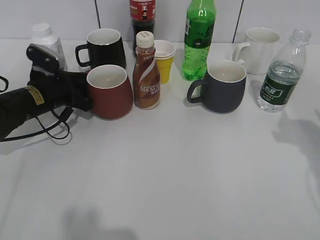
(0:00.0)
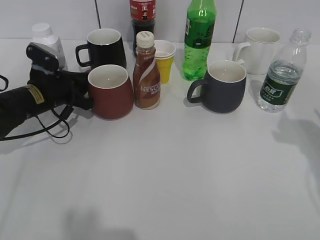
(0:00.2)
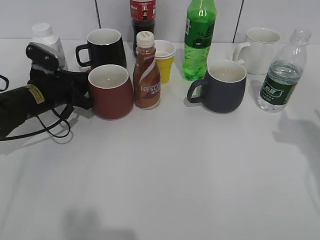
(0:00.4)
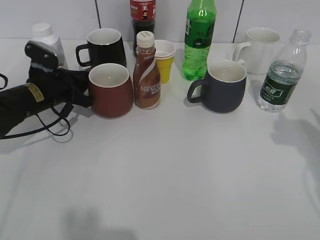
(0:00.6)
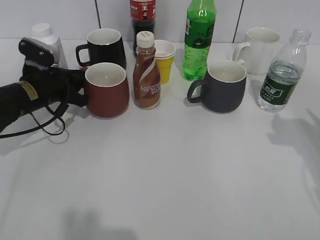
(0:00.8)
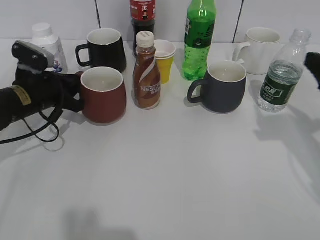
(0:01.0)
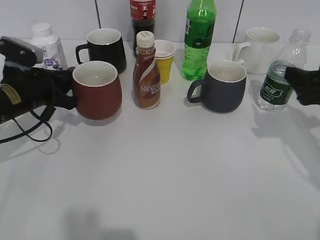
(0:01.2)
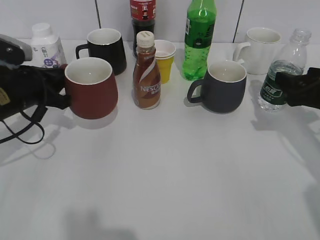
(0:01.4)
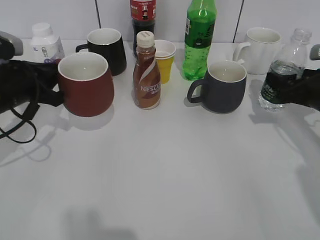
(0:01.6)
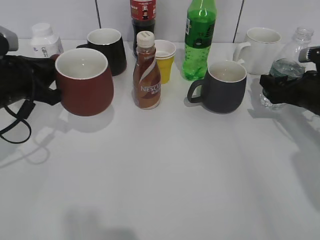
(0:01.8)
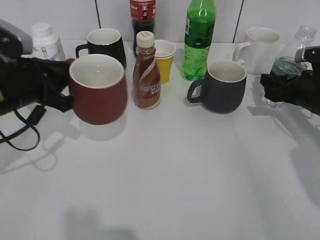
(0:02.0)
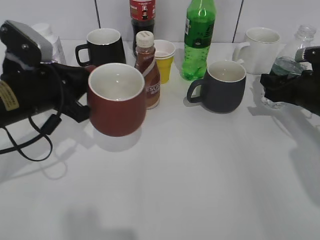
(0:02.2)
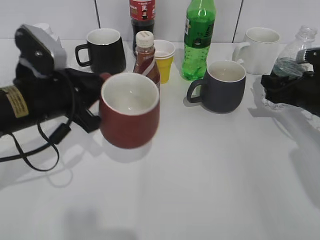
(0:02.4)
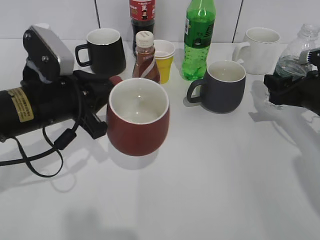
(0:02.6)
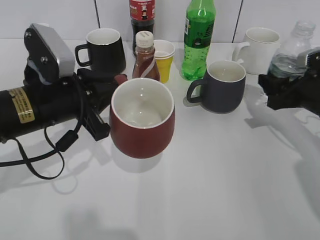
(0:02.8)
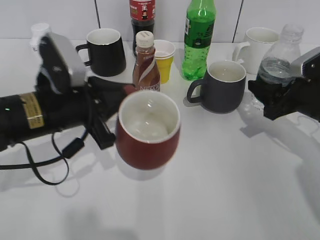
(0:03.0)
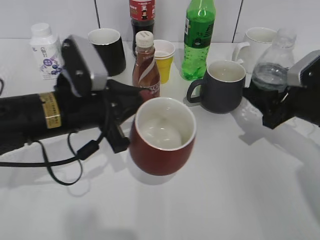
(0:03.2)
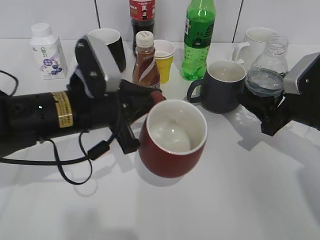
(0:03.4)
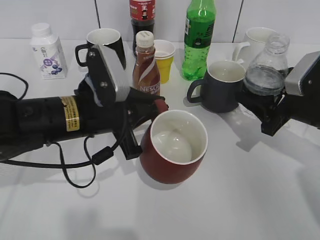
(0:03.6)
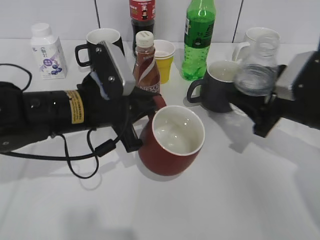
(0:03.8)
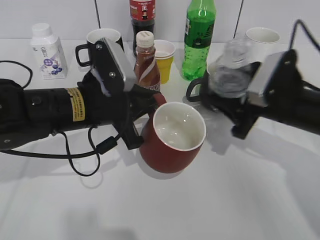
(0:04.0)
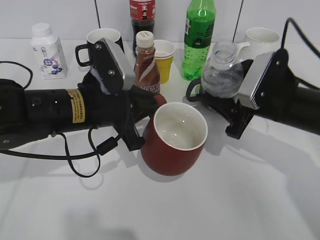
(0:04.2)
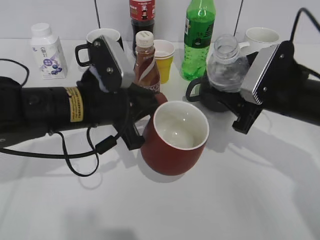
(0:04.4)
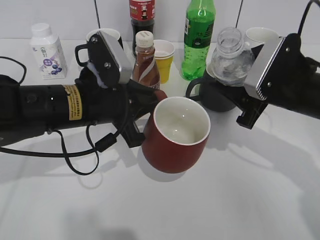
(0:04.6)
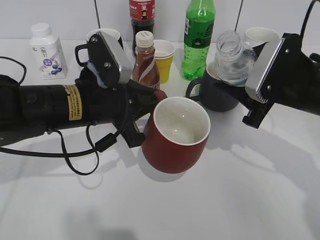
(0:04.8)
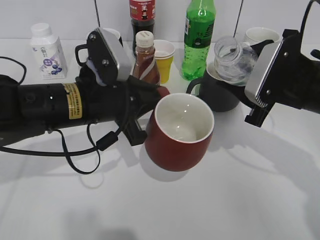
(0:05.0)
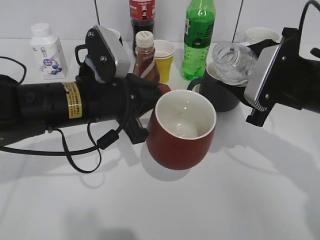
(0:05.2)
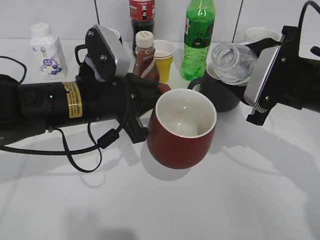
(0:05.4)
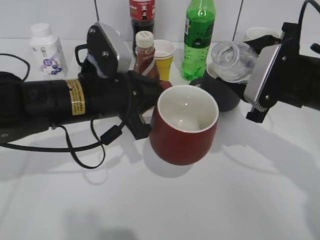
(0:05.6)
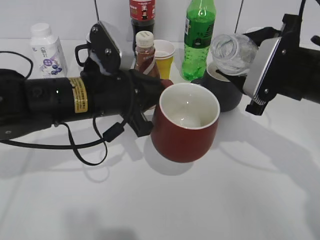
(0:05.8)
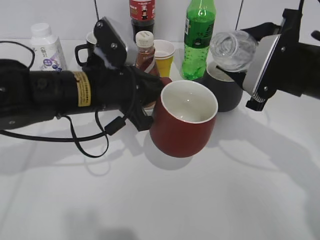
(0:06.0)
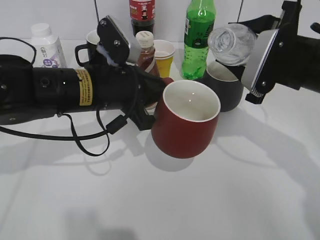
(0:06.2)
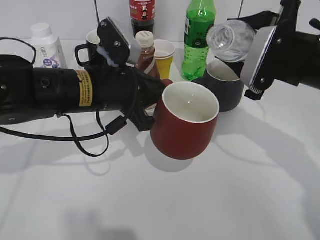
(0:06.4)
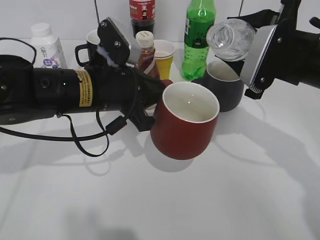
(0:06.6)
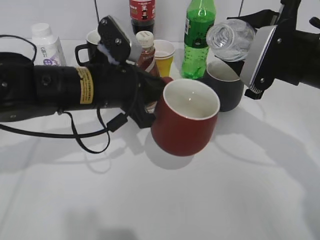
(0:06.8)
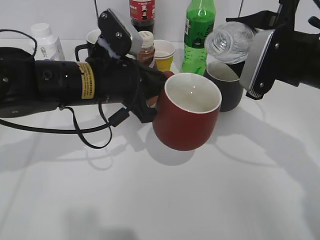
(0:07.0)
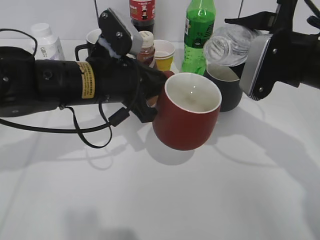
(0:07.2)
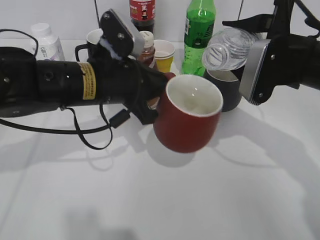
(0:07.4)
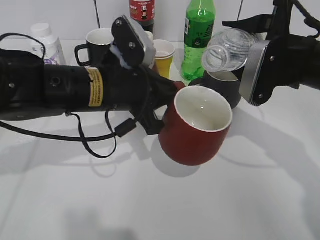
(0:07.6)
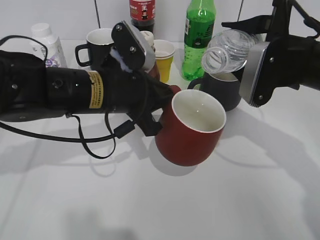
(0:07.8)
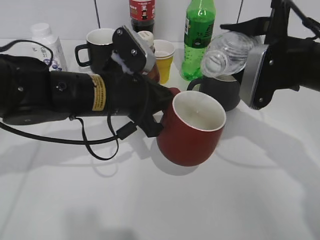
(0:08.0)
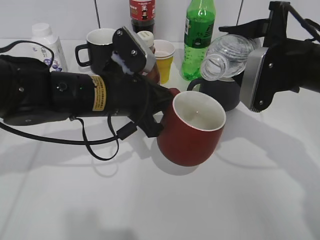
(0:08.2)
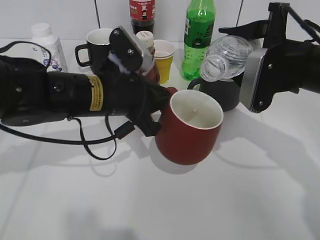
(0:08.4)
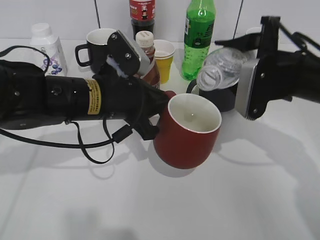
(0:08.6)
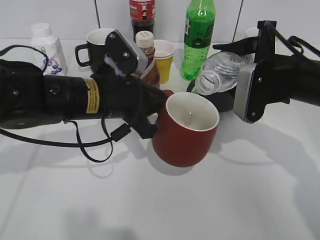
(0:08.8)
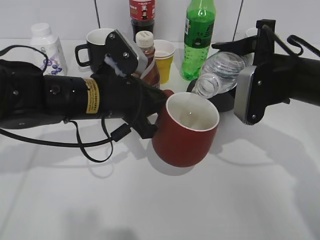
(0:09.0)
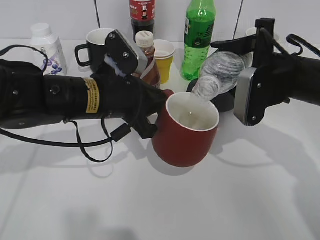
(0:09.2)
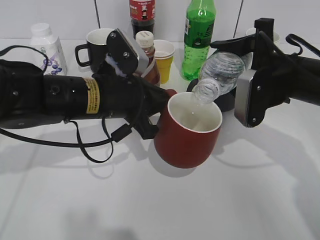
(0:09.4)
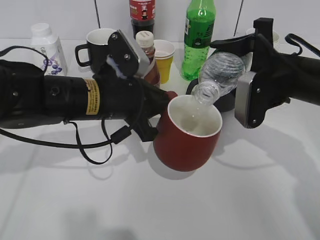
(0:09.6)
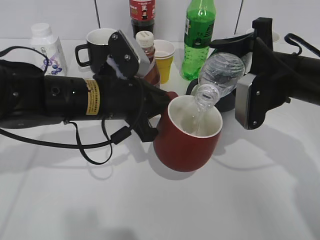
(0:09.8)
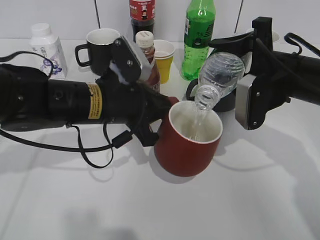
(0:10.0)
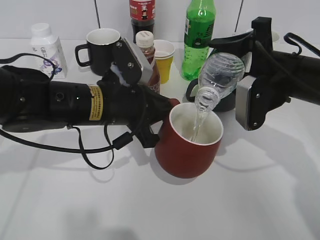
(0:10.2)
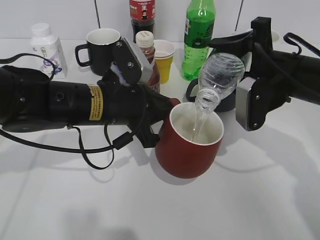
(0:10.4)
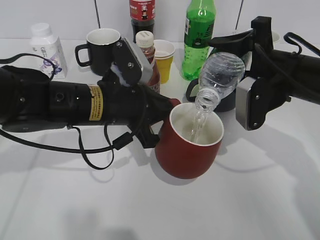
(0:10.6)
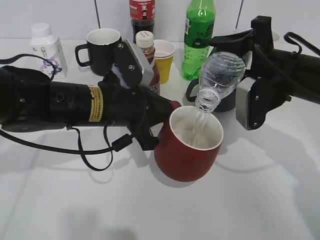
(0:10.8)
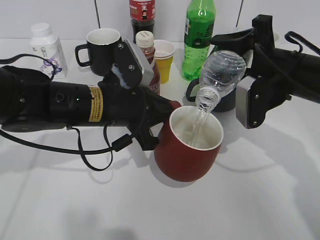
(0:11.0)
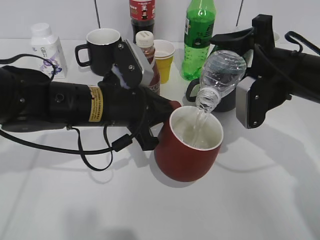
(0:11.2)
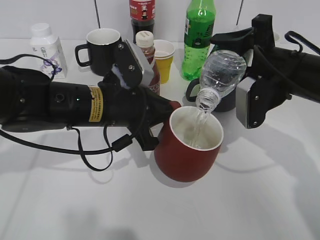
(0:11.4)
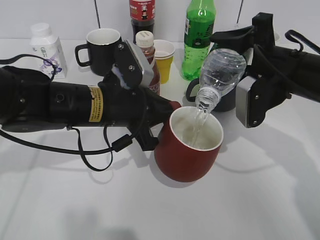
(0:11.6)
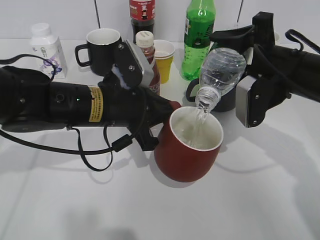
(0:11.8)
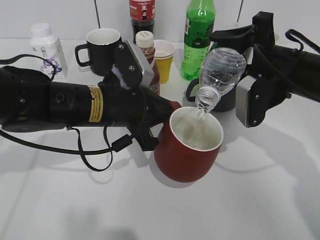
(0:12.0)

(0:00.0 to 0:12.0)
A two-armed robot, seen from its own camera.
Step, 0:01.4 - 0:02.2: Grasp the bottle with water with right gripper.
0:00.0 - 0:01.6: The right gripper heads downward and forward, covering some 15 cm; the left gripper heads backward and upward, covering approximately 10 cm, and closes up.
0:01.6 - 0:03.0: The right gripper closes; the left gripper goes about 10 cm to the right and backward.
0:03.0 - 0:04.4: The right gripper shifts approximately 10 cm to the left.
0:06.0 - 0:07.6: The grippers make only small movements.
0:09.0 - 0:10.4: The grippers make only small movements.
0:10.4 - 0:12.0: There are only small adjustments of the grippers.

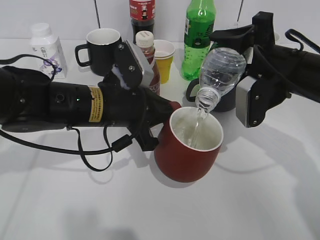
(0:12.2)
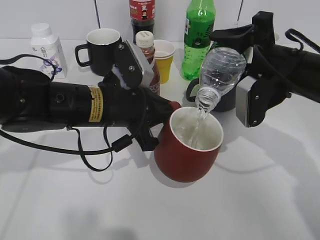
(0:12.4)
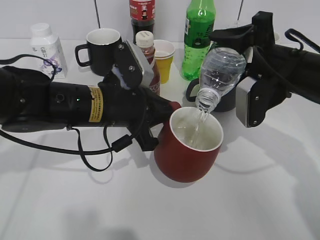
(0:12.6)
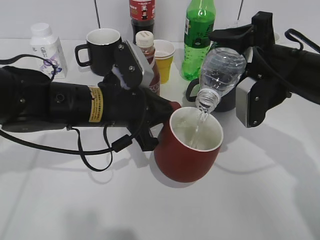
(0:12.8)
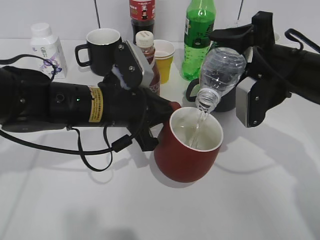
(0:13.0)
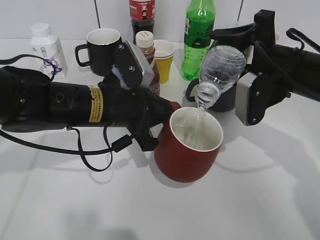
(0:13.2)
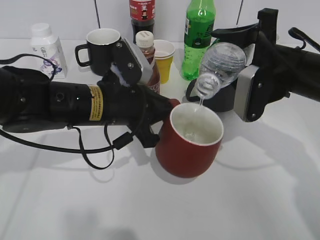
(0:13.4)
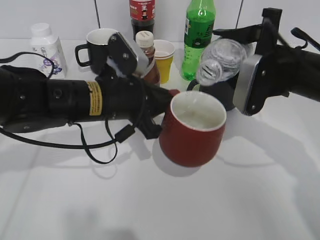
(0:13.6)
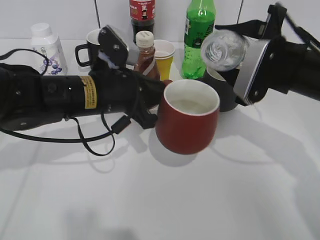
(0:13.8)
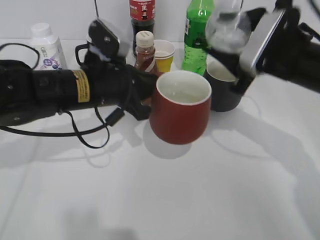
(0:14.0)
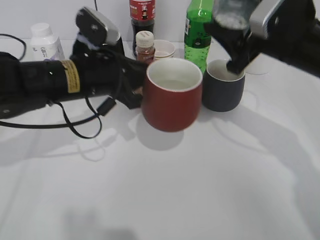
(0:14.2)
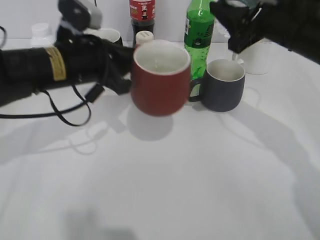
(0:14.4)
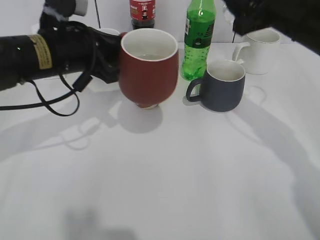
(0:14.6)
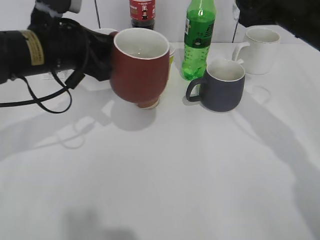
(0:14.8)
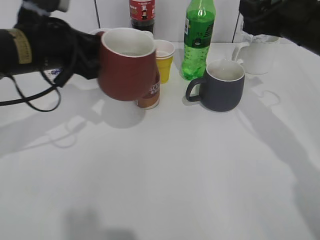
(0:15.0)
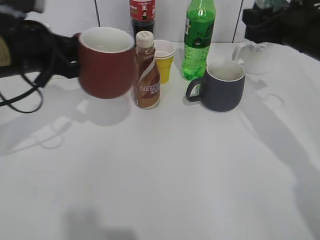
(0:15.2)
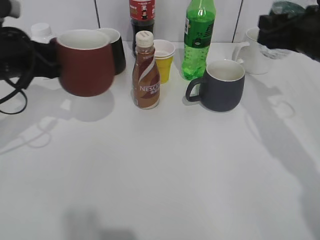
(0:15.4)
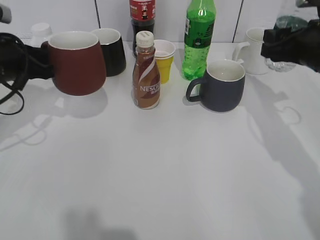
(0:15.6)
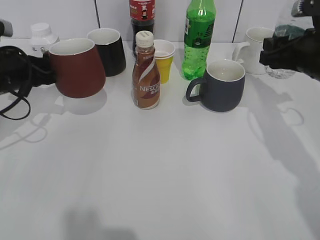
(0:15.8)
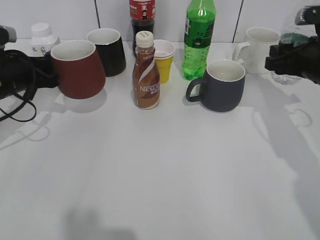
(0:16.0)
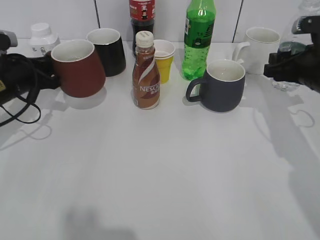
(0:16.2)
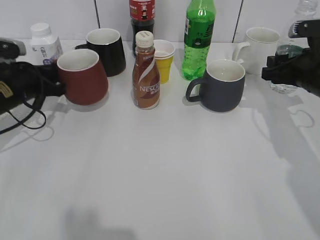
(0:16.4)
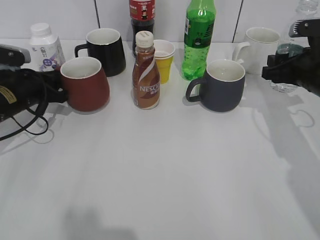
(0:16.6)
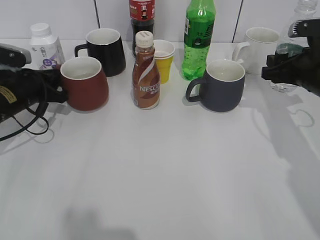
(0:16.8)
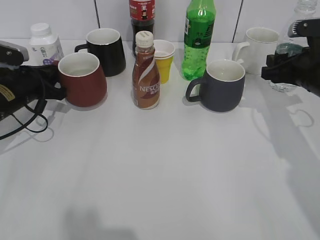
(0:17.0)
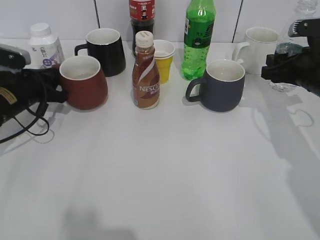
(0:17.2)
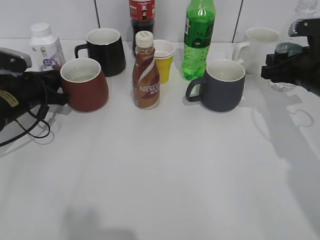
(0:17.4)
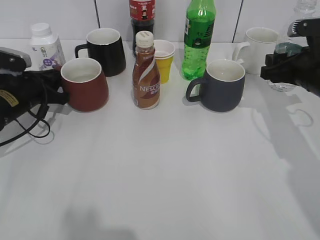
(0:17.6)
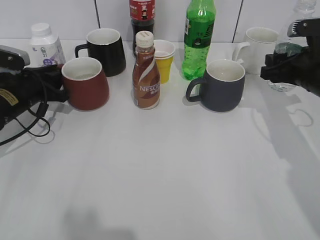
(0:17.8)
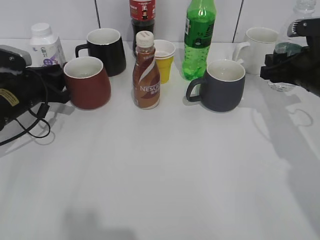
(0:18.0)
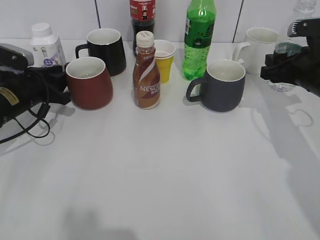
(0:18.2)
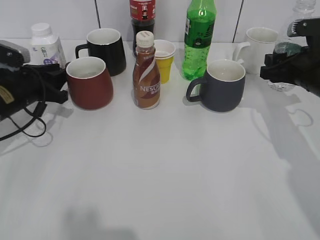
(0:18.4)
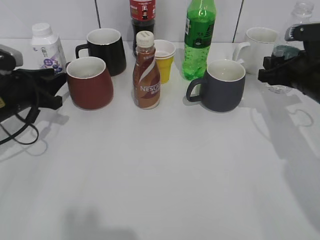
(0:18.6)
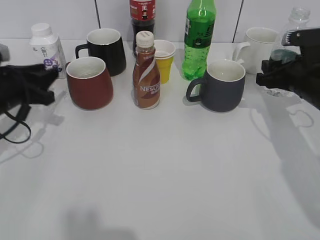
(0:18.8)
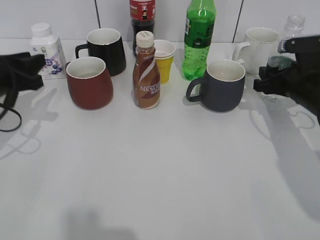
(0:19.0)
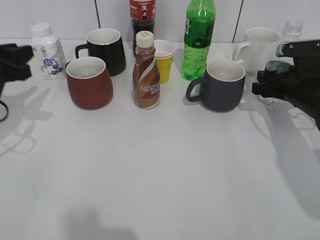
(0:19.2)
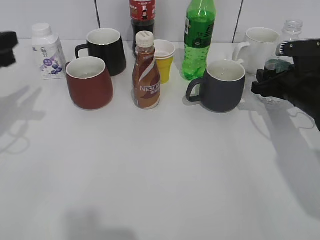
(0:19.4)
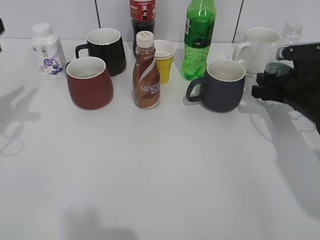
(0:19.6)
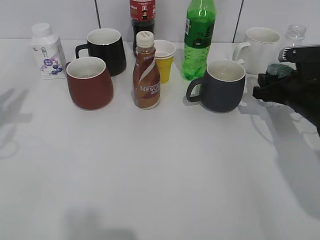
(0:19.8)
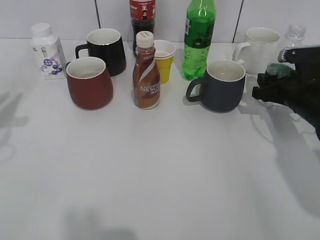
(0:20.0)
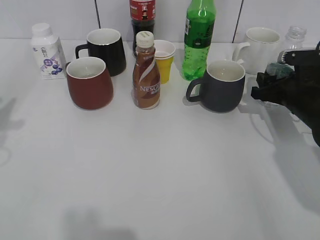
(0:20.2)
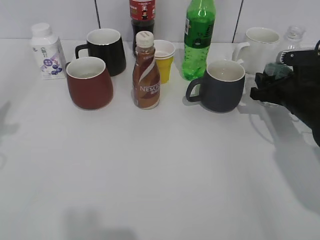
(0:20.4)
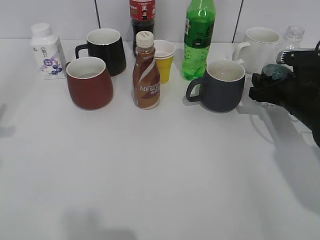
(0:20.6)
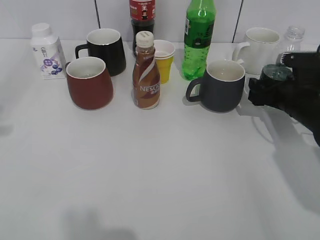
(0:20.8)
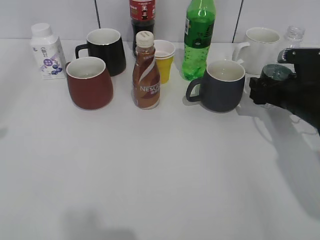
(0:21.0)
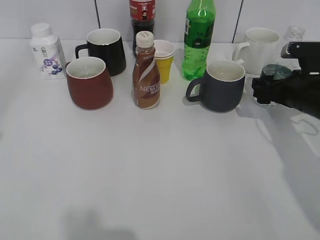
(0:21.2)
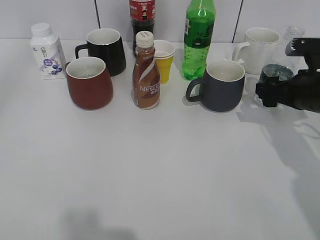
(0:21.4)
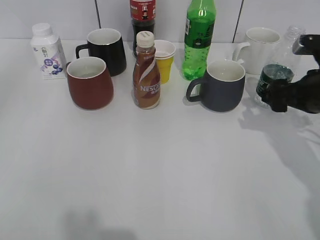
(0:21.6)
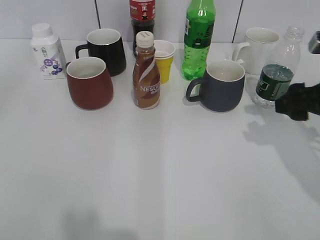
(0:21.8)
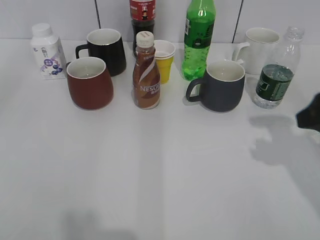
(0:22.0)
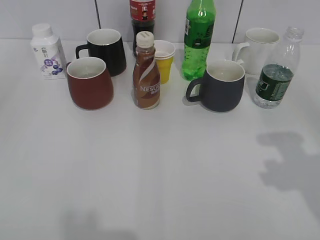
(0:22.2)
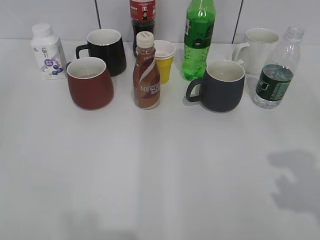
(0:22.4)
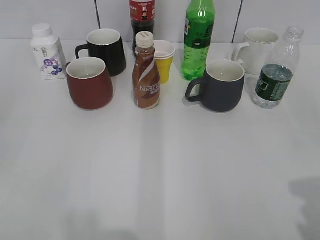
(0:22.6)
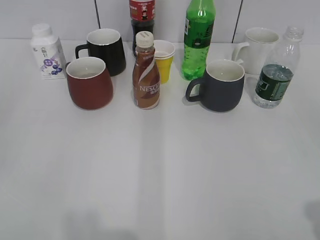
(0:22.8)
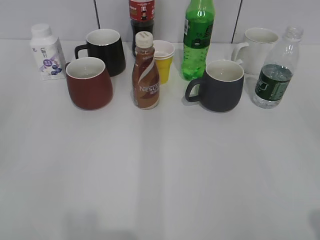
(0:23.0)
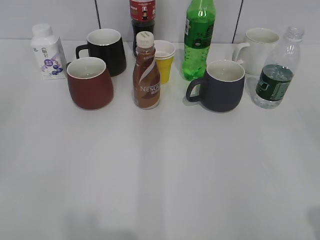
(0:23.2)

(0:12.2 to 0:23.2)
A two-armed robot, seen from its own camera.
Step, 0:14.2 - 0:18.2: Place the red cup on the table with left gripper.
Step, 0:18.4 - 0:21.2: Place the water bottle on the table with right gripper.
0:13.8 - 0:15.4: The right gripper moves roughly 5 cm; the left gripper is displaced to the left by some 15 cm.
0:15.4 - 0:17.0: The left gripper goes approximately 10 cm downward and forward; the right gripper goes roughly 5 cm downward.
0:17.0 - 0:18.4: The left gripper opens up.
0:18.4 - 0:20.0: The left gripper moves upward and backward, roughly 20 cm.
0:20.0 - 0:21.6: The right gripper heads upward, covering some 5 cm, and opens up.
0:21.6 - 0:23.2: The right gripper travels backward and upward by roughly 30 cm.
